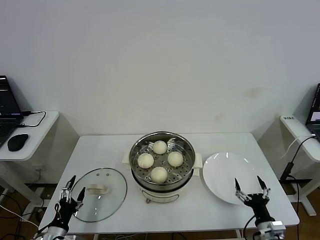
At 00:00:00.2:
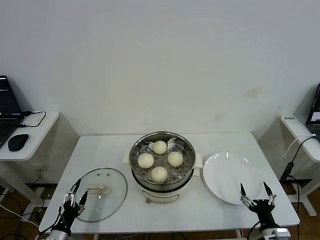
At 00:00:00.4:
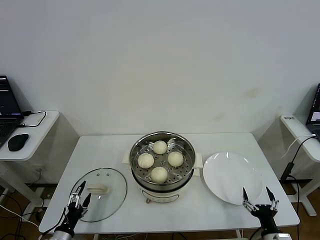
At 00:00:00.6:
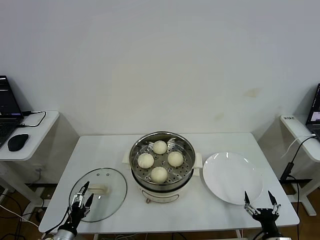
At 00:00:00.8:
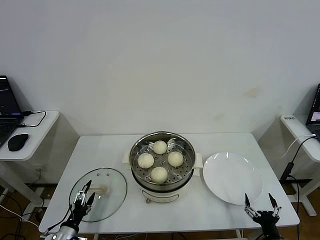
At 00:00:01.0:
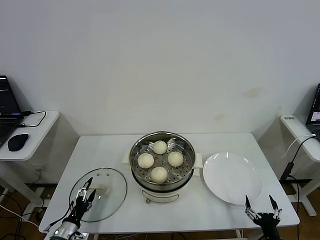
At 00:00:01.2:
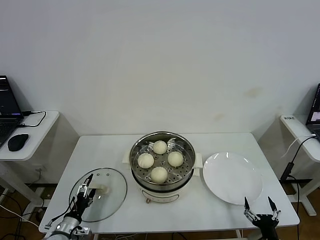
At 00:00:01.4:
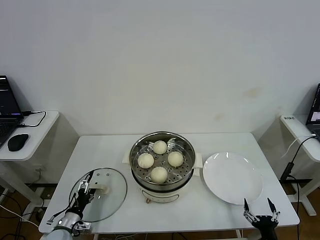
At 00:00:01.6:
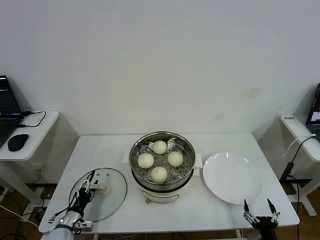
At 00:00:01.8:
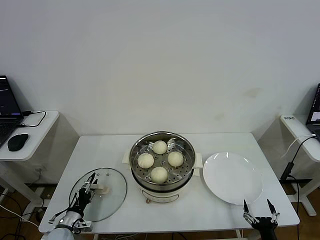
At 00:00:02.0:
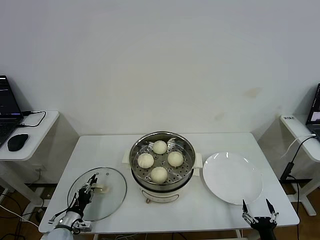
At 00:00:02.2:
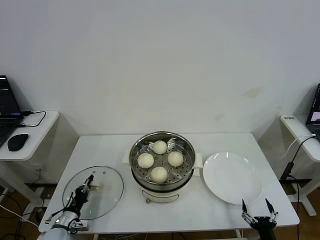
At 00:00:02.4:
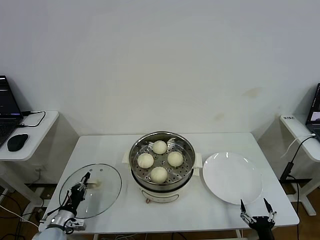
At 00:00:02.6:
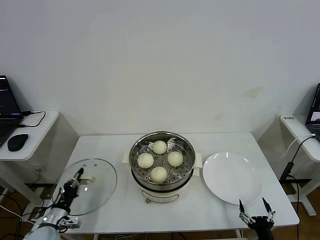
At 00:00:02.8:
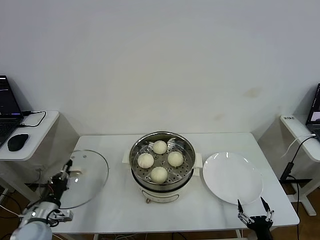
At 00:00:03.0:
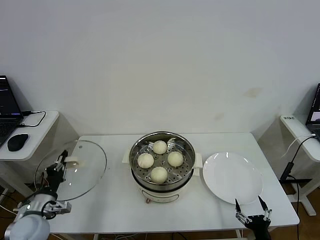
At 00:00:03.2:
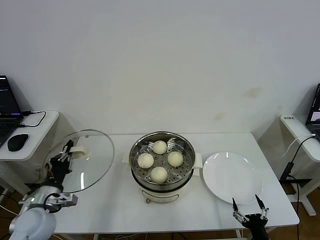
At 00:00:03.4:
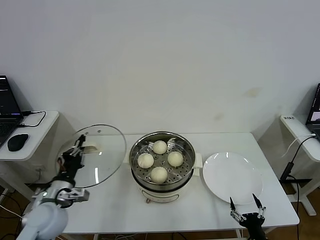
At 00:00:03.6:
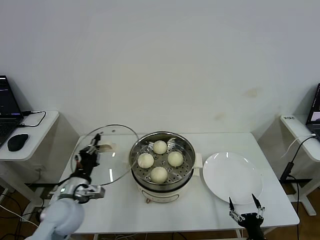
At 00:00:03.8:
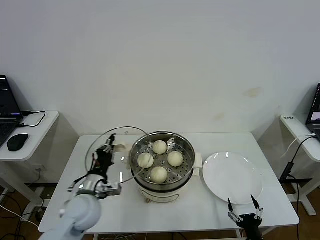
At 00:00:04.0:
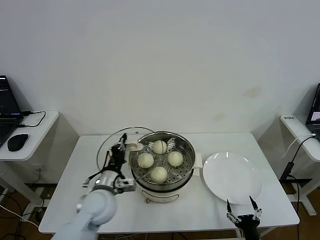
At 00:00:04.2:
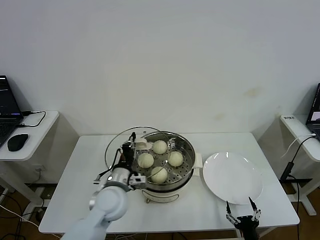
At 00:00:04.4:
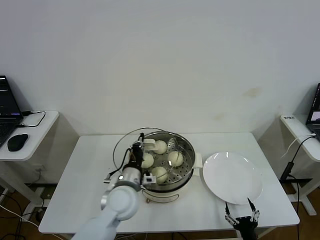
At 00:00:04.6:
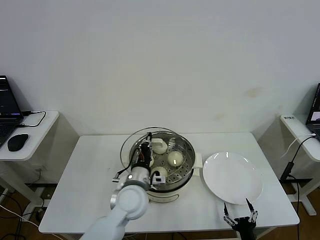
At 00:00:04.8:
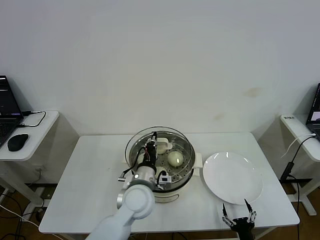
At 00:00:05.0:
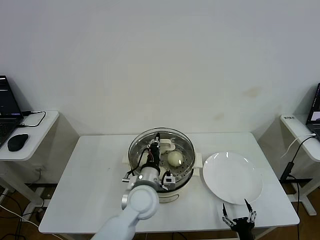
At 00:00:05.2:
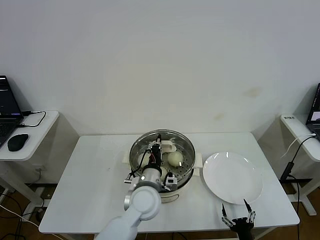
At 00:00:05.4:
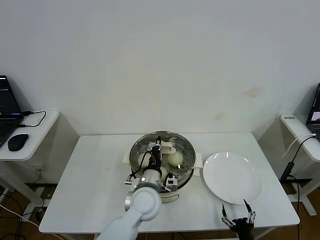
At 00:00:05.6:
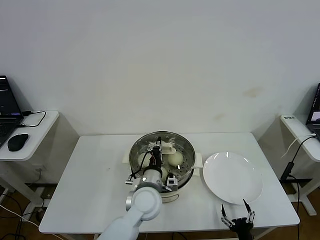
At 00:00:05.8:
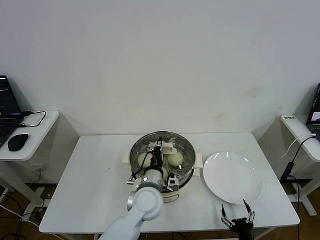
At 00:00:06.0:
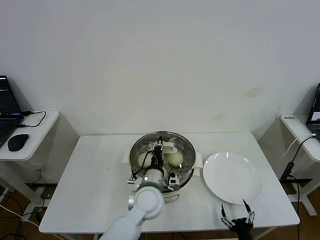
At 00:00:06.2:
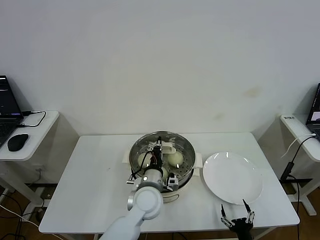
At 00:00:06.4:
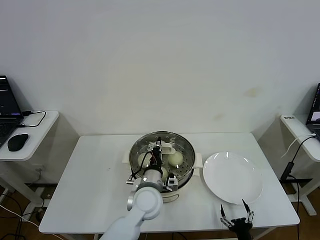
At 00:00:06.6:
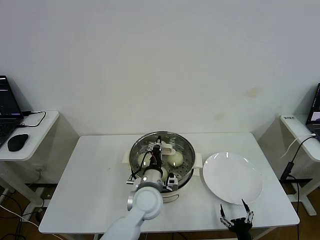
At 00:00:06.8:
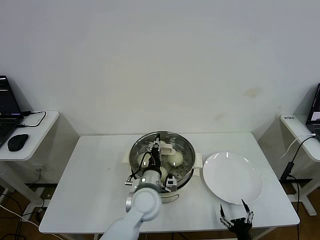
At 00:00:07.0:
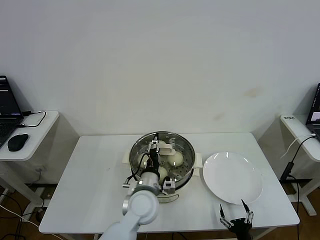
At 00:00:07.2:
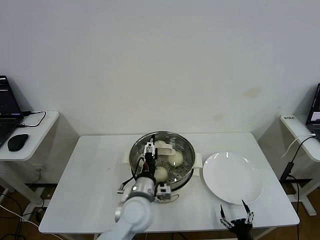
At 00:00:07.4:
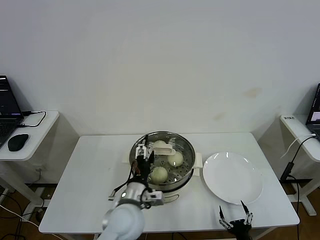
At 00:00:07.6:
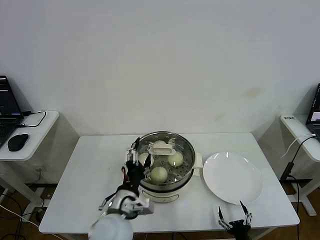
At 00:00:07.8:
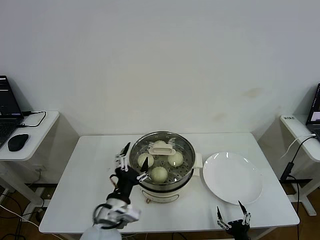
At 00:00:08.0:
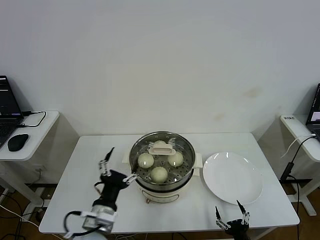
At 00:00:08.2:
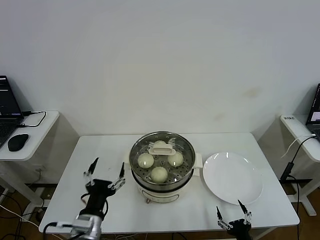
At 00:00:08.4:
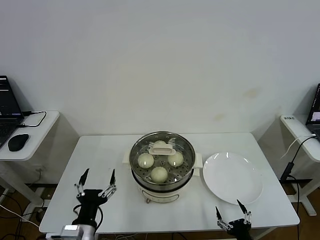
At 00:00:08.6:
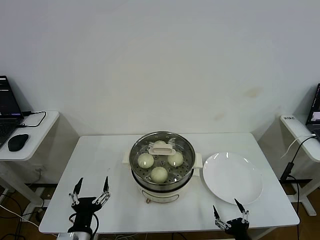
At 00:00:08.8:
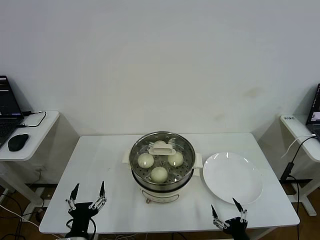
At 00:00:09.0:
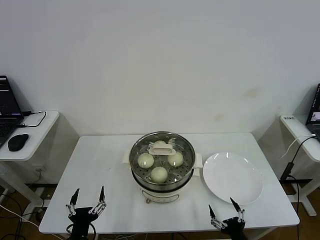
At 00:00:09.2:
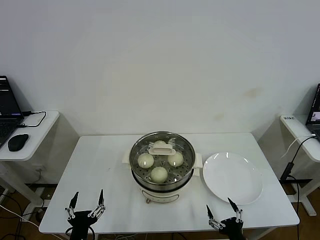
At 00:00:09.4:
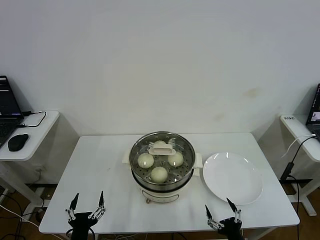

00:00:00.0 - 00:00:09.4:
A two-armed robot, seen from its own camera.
Step, 00:00:00.0 - 00:00:02.2: Grasp the pot lid with left gripper.
Step, 00:00:02.4 - 00:00:07.0: Place the pot lid on the steamer with left gripper.
00:00:00.0 - 00:00:01.6: The right gripper travels backward by some 5 cm; the left gripper shifts approximately 5 cm forward.
00:00:01.6 - 00:00:03.2: The left gripper shifts roughly 20 cm upward, and closes.
00:00:03.2 - 00:00:04.8: The left gripper goes approximately 30 cm to the right. The right gripper moves approximately 5 cm.
00:00:04.8 - 00:00:06.2: The grippers make only small movements.
00:00:06.2 - 00:00:07.8: The left gripper moves backward and to the left, roughly 15 cm, and opens.
00:00:07.8 - 00:00:09.4: The right gripper is displaced upward by roughly 5 cm; the left gripper is displaced downward, to the left and backward by about 20 cm.

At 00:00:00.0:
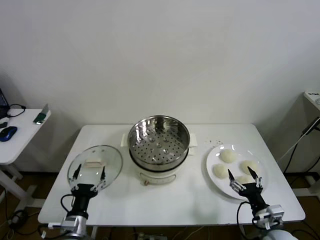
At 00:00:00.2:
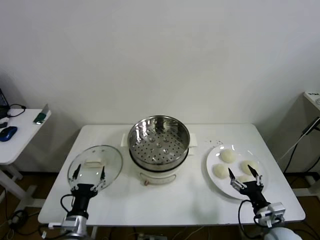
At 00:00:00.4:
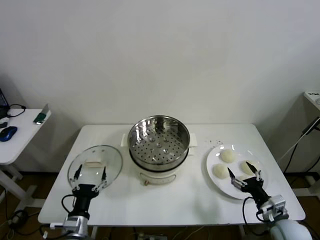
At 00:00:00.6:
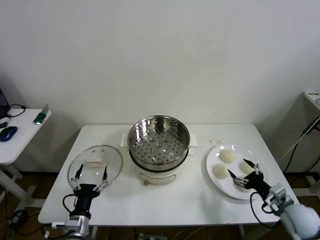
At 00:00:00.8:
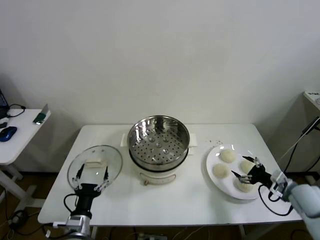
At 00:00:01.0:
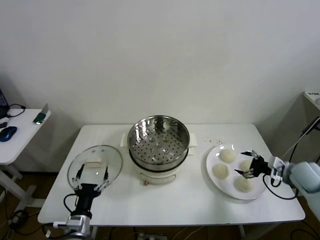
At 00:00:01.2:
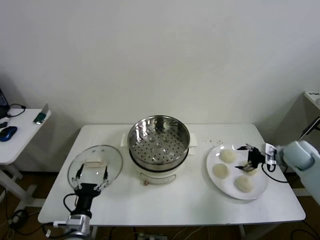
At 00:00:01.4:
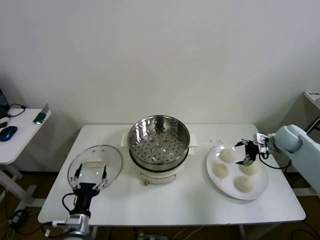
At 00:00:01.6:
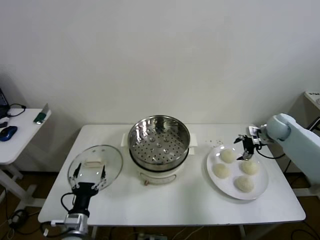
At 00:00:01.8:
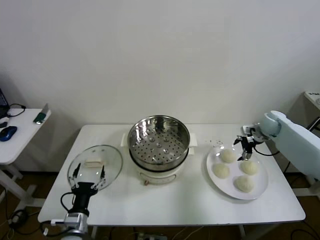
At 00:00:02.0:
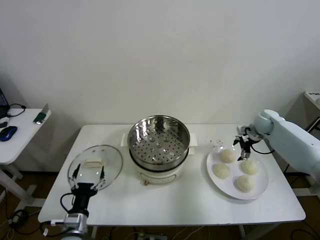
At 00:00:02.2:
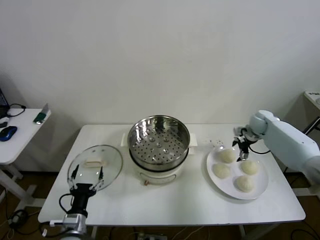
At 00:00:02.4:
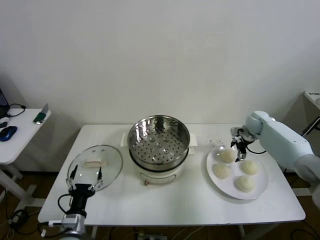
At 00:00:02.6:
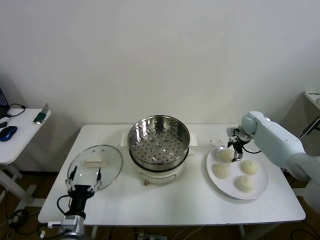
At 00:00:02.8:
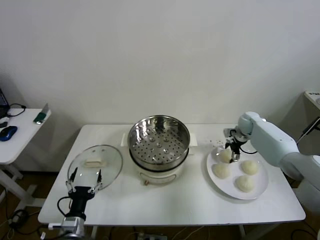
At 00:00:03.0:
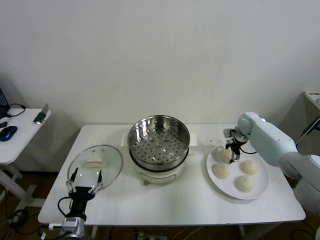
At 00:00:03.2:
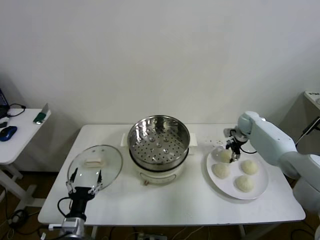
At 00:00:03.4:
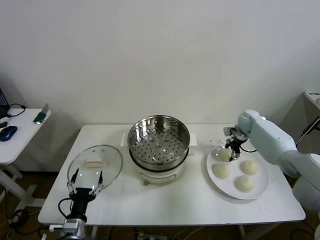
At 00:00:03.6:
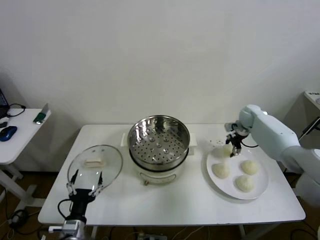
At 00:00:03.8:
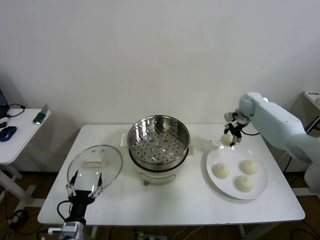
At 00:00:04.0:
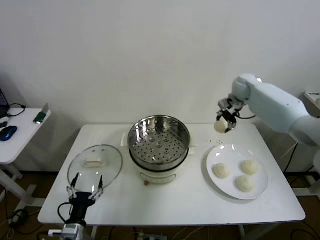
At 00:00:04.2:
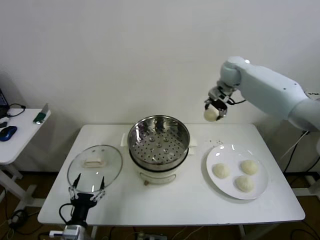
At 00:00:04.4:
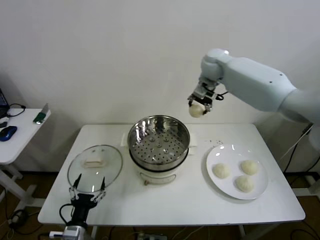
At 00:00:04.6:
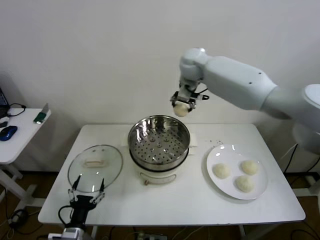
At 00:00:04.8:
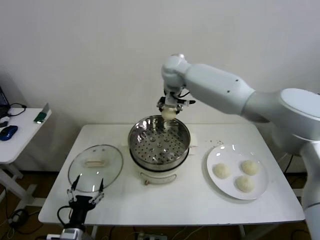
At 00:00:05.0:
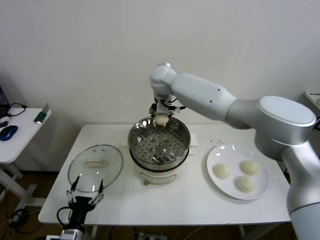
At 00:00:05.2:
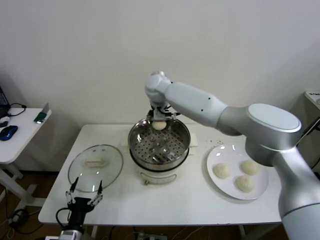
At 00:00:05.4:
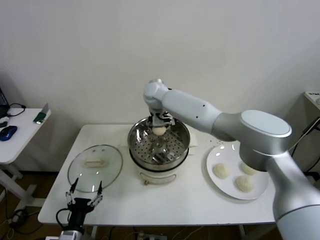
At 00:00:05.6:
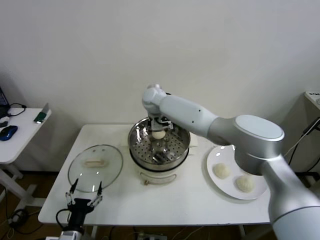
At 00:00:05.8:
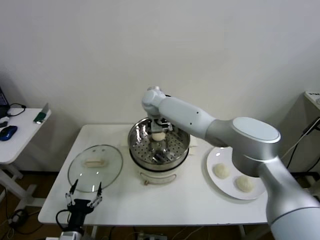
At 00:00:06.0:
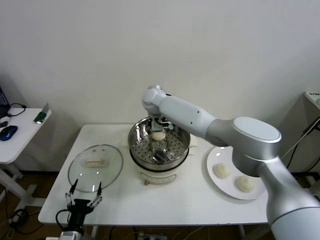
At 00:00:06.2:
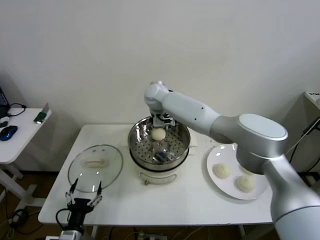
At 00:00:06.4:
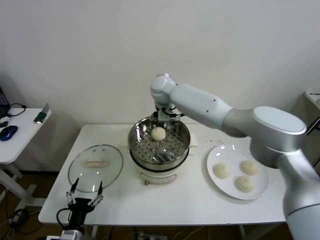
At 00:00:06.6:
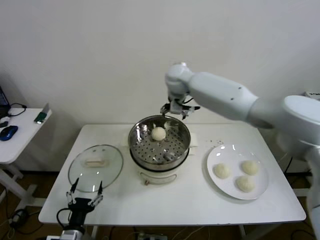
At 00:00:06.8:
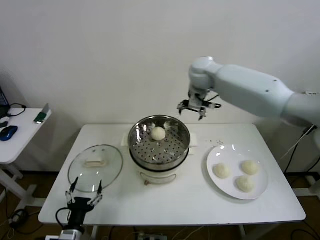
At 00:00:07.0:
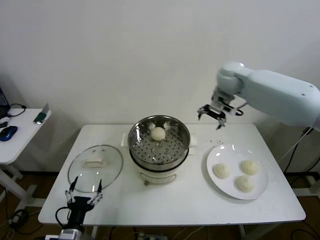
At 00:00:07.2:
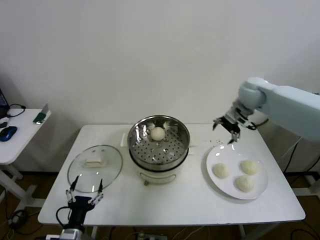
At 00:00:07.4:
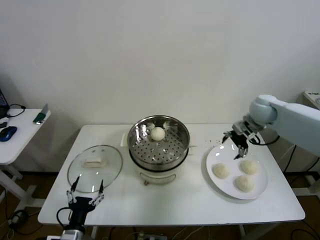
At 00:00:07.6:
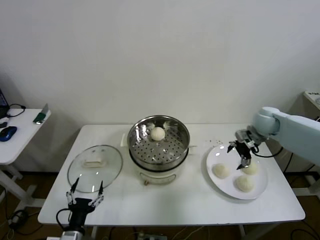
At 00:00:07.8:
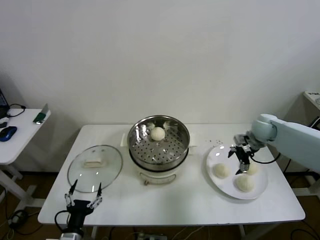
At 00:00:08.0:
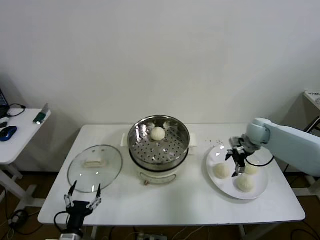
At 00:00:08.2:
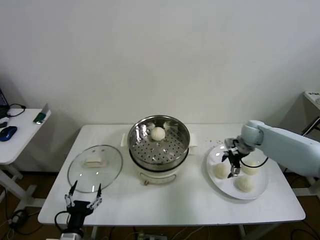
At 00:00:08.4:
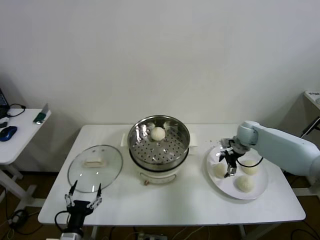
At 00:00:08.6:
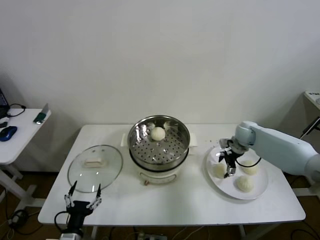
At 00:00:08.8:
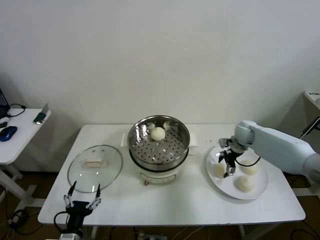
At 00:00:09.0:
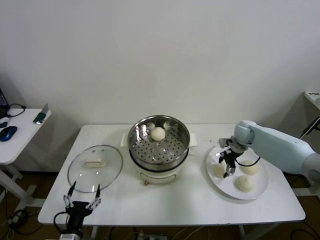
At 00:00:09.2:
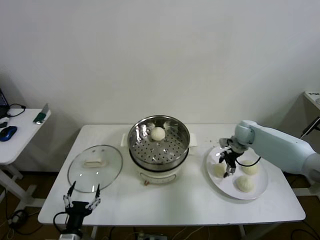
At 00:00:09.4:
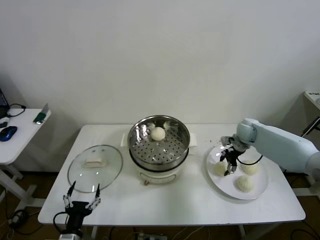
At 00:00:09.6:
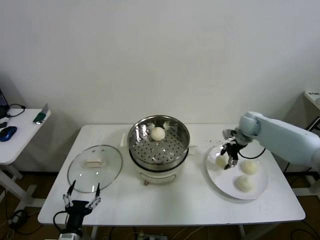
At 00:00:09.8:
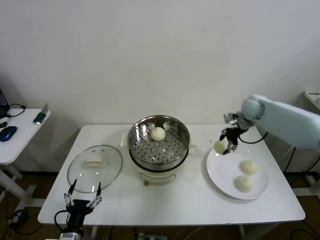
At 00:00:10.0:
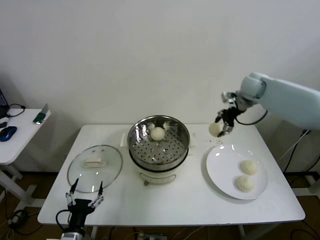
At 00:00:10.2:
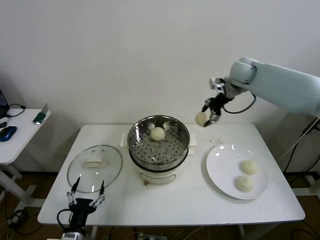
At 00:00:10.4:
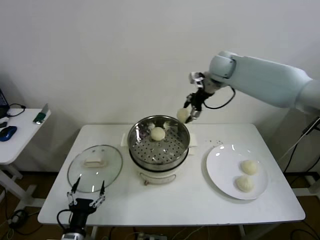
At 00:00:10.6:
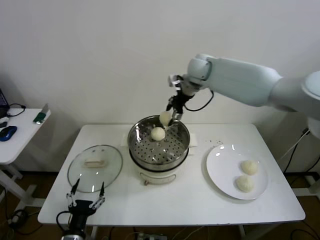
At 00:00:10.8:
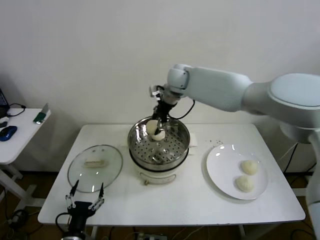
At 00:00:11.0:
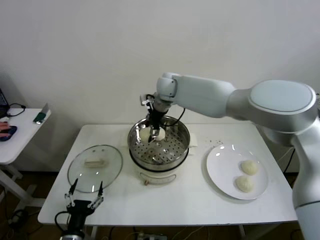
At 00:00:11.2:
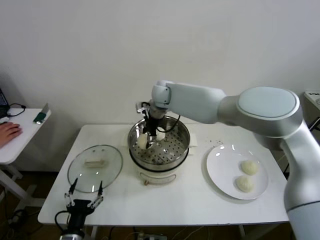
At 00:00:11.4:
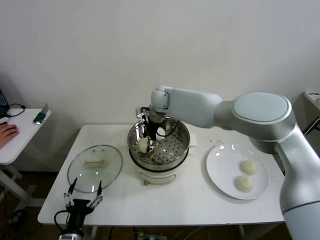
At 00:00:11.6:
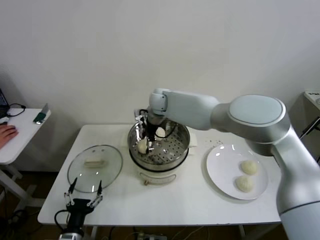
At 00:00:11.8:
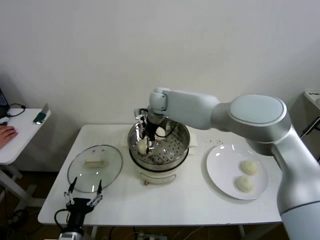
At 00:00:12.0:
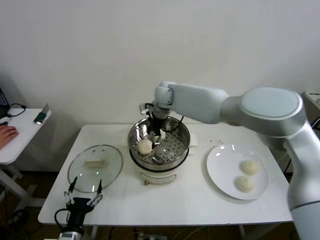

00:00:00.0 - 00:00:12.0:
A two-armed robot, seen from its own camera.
Step, 00:00:00.0 - 00:00:03.2: Grasp the baozi in the plate with right gripper.
Step, 00:00:03.4 - 00:00:06.4: Place the baozi on the steamer with right gripper.
Step, 00:00:06.6 - 00:00:09.2: Grasp the baozi in the plate with right gripper.
00:00:01.6 - 00:00:03.0: The right gripper shifts about 10 cm forward, to the left and downward, and closes.
00:00:03.0 - 00:00:04.4: The right gripper is displaced upward and to the left by approximately 35 cm.
00:00:04.4 - 00:00:06.0: The right gripper moves to the left and downward, about 20 cm, and opens its fingers.
00:00:06.0 - 00:00:07.6: The right gripper shifts approximately 40 cm to the right.
00:00:07.6 - 00:00:09.0: The right gripper heads downward, covering about 10 cm, and closes.
00:00:09.0 - 00:00:10.4: The right gripper is displaced upward and to the left by roughly 30 cm.
00:00:10.4 - 00:00:12.0: The right gripper shifts approximately 15 cm to the left and downward, and opens up.
